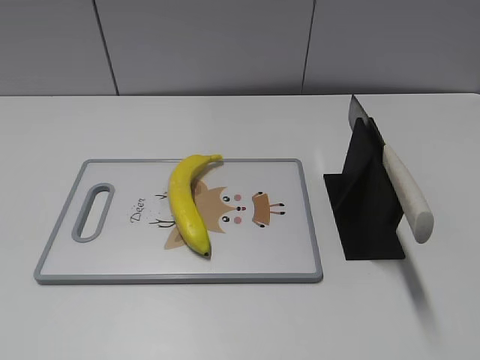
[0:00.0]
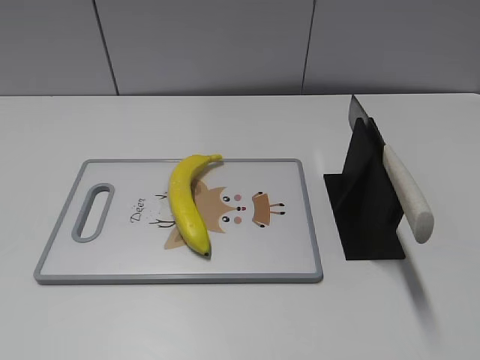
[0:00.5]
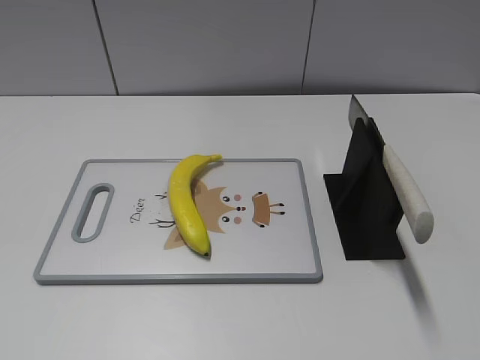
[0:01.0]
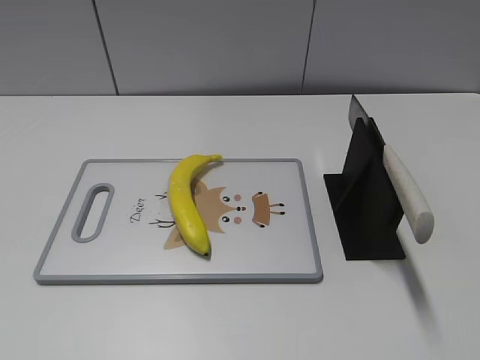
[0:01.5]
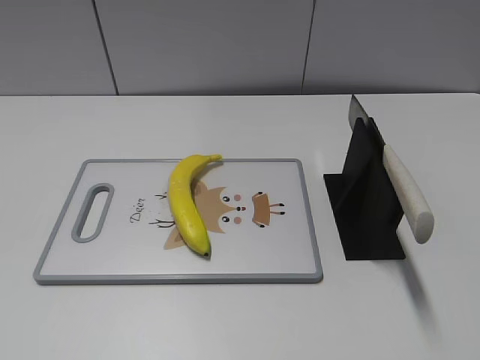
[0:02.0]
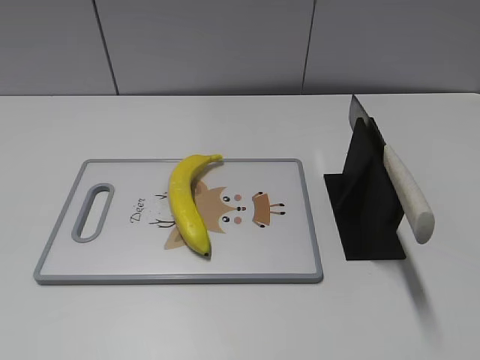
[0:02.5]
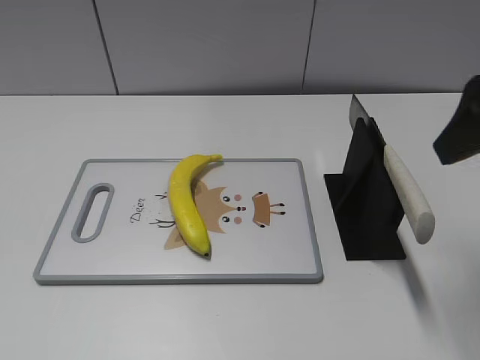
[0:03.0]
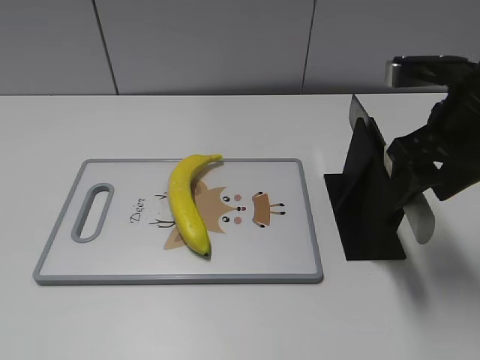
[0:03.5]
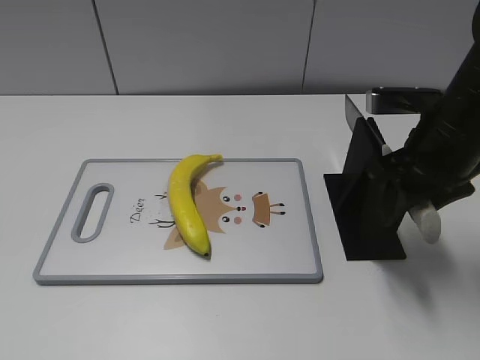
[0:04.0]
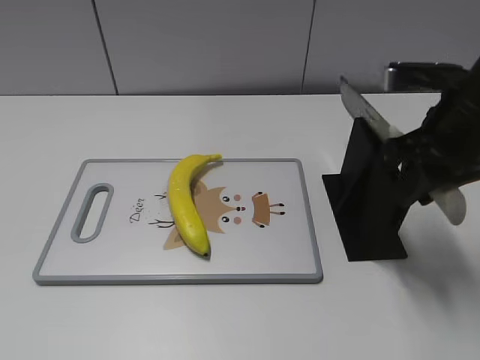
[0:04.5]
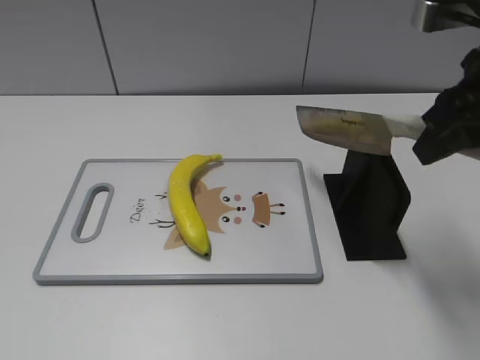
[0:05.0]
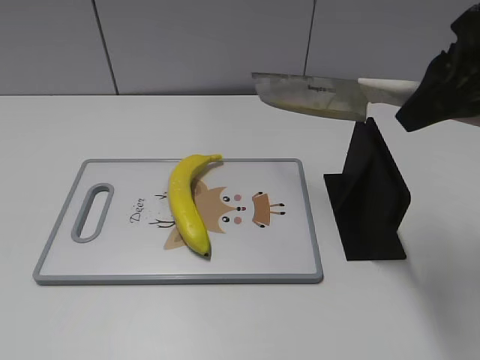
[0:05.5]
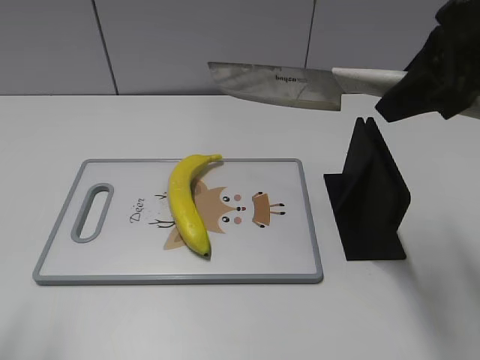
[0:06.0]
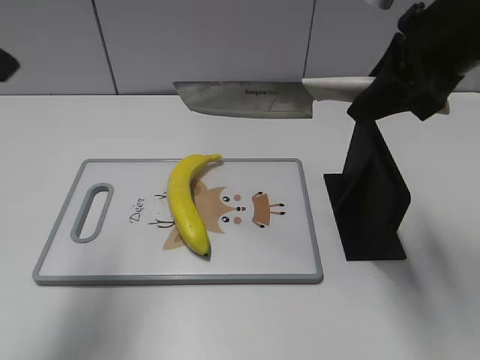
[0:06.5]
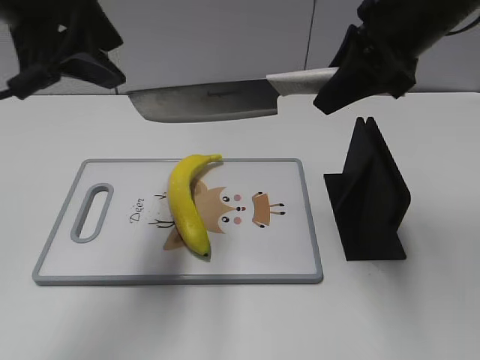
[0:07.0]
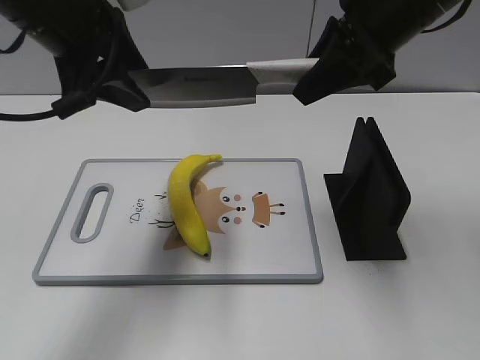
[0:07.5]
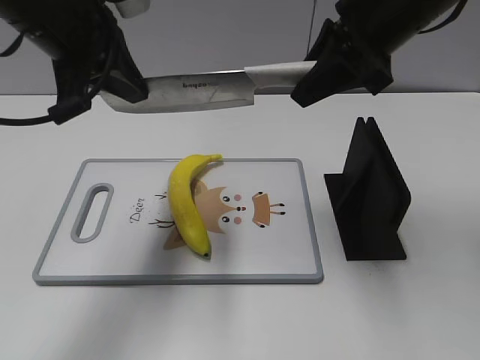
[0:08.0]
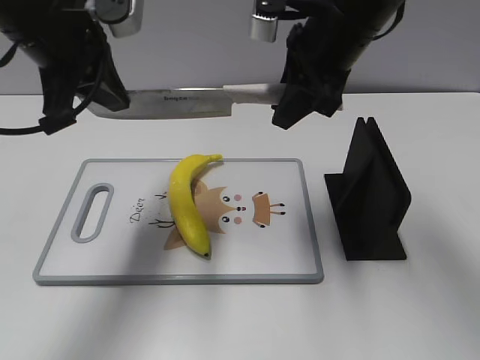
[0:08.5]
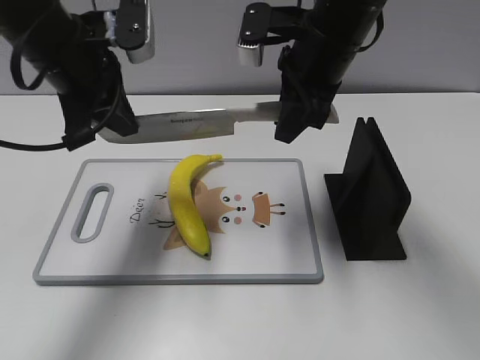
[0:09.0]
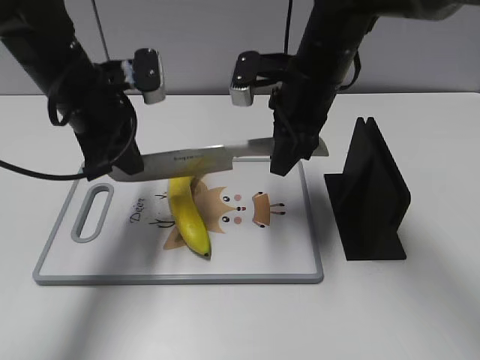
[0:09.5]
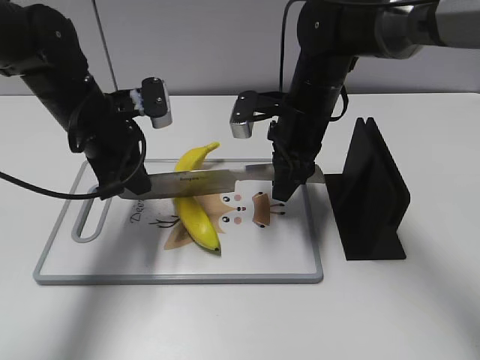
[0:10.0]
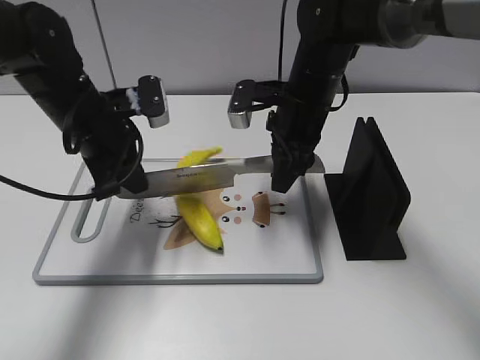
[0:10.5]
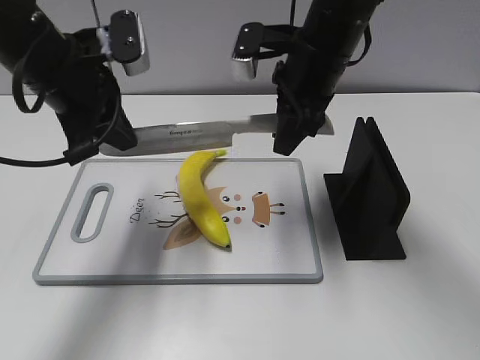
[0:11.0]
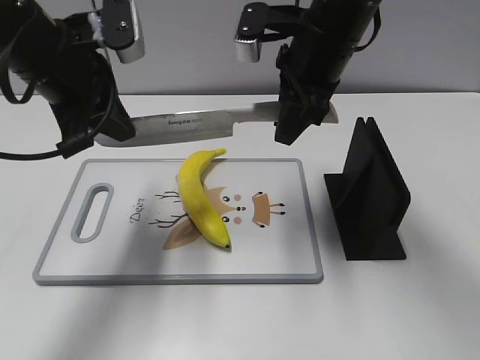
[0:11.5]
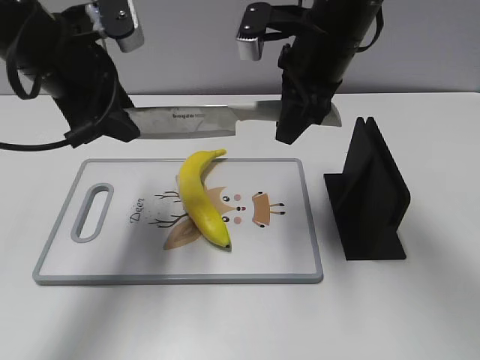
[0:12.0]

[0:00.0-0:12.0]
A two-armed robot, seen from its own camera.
Task of the whole recording: cut plastic banana.
Step, 0:00.0 to 0:05.0: Grab the knife handle with your right hand.
Step, 0:05.5 to 0:09.5: Lift the knife with your right hand.
0:02.0 to 0:04.0: The right gripper goes about 25 cm forward, and closes up.
0:04.0 to 0:06.0: The left gripper is displaced forward and upward by approximately 10 cm. The right gripper is displaced upward by roughly 10 cm, and closes.
0:06.0 to 0:08.0: The left gripper goes approximately 25 cm forward and to the right, and closes its fingers. Meanwhile the right gripper goes some 10 cm forward.
0:08.0 to 0:10.0: The left gripper heads downward, covering approximately 15 cm; the right gripper travels downward and to the left by some 15 cm.
0:10.0 to 0:12.0: The grippers both shift upward by approximately 10 cm. The left gripper opens.

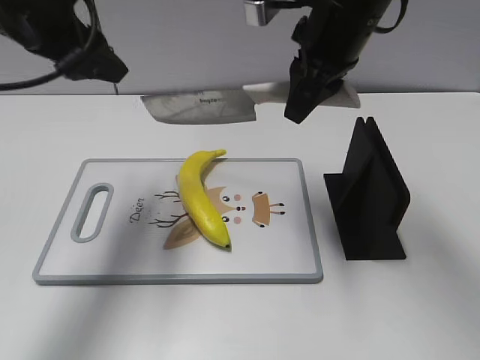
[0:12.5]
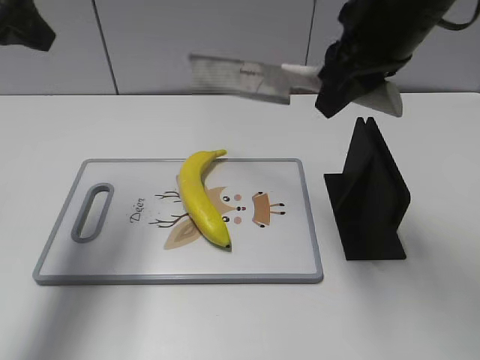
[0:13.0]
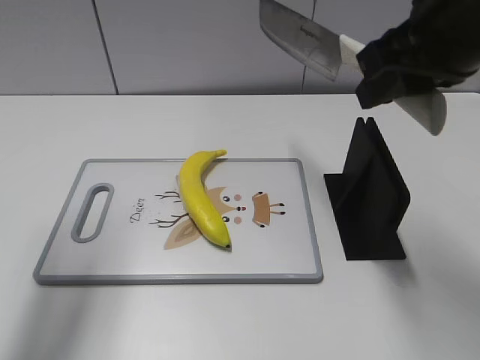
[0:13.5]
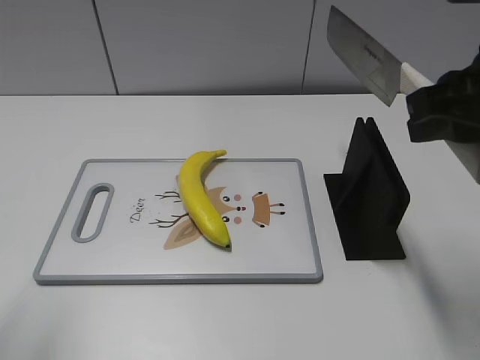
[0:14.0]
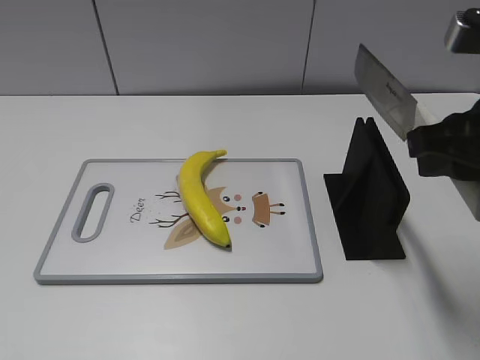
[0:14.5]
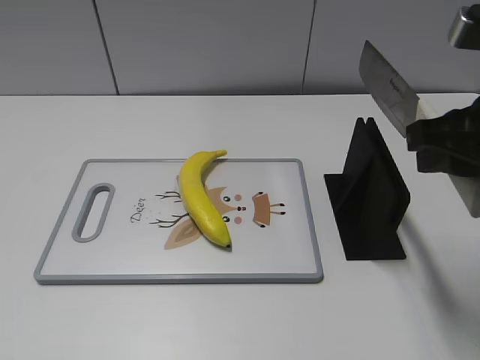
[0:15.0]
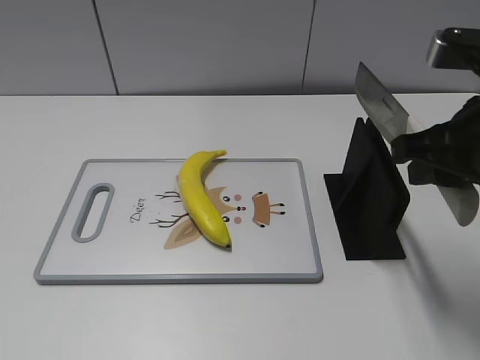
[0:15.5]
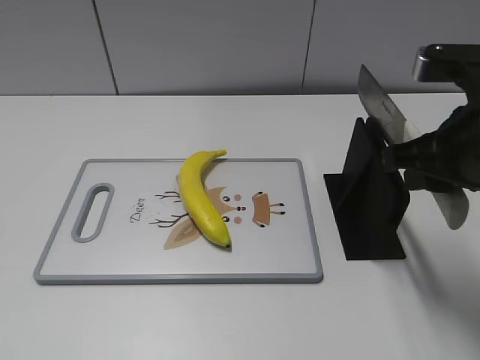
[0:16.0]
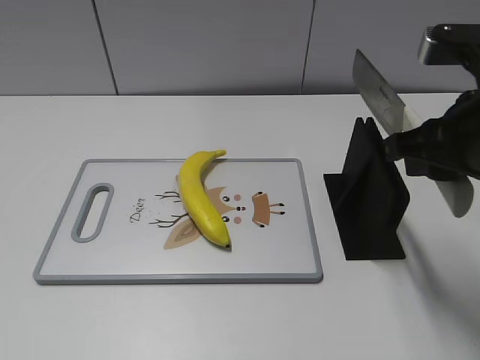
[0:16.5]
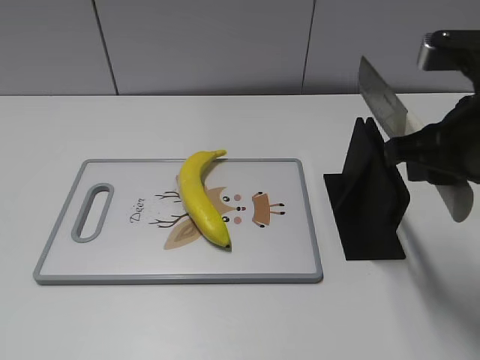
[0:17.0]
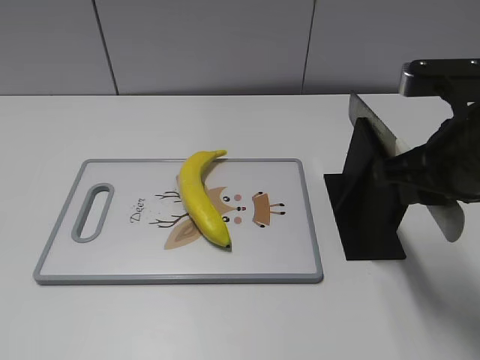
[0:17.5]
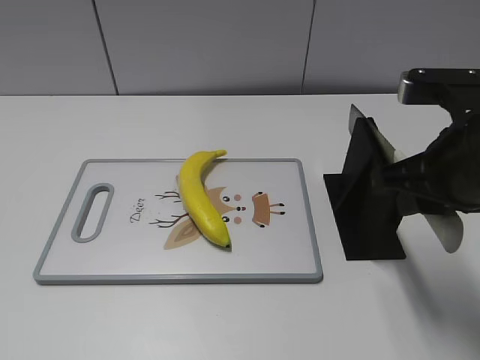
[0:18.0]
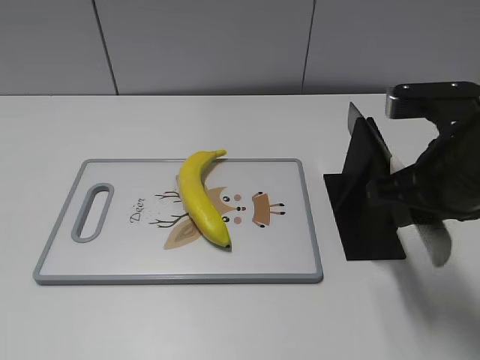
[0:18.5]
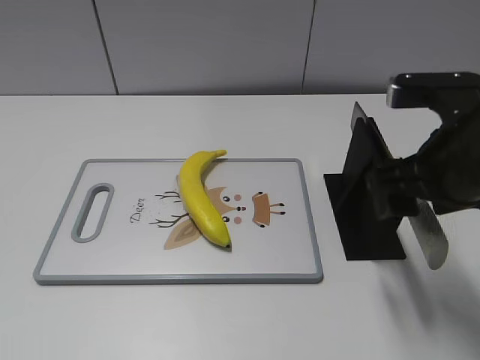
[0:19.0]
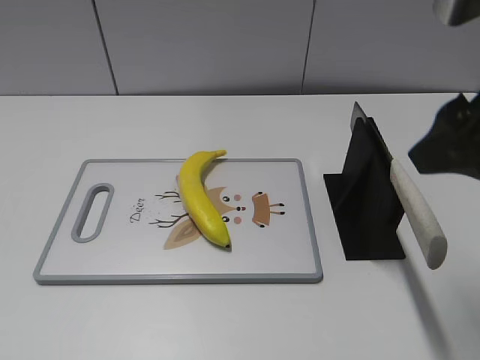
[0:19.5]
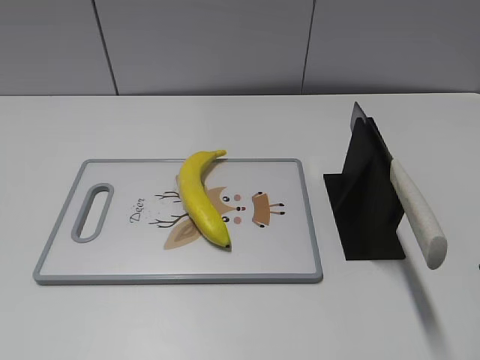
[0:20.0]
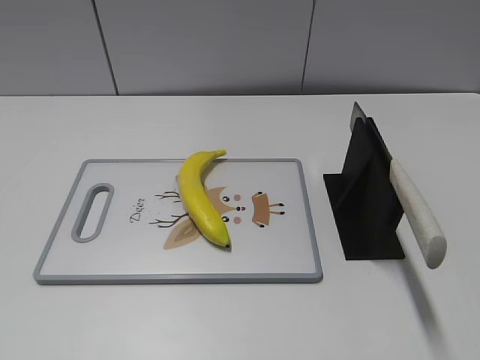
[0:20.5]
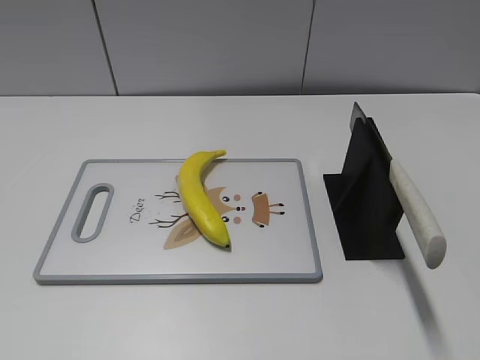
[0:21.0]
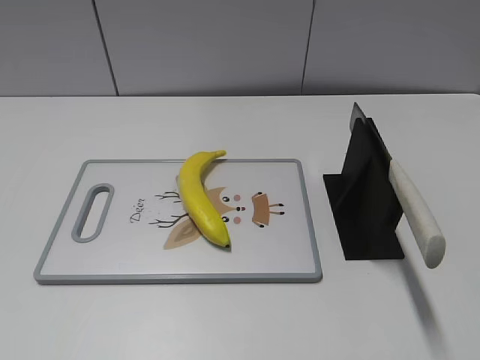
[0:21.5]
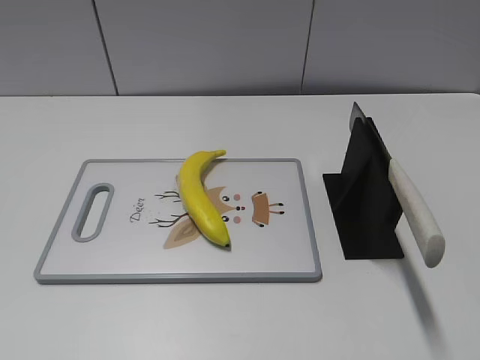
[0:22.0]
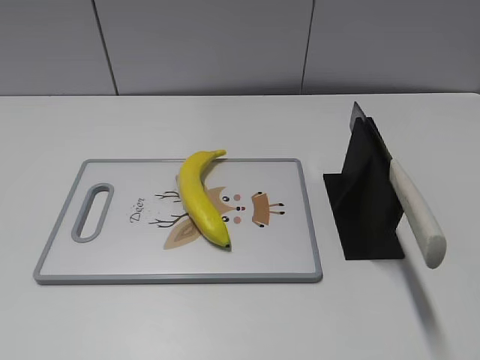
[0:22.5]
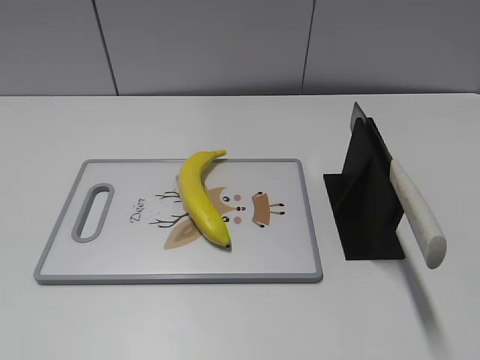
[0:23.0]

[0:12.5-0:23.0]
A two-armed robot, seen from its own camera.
Task of the whole recording: cut plastic banana.
Step, 0:13.0 to 0:14.5: Lift the knife with your right hand.
Step, 0:15.0 to 0:23.0: Place the knife on the storage rack with your right hand.
0:12.5 to 0:14.5: The right gripper goes some 20 cm backward and to the right. Meanwhile the left gripper shifts some 30 cm backward.
0:16.5 to 0:19.0: The right gripper opens up.
0:19.0 to 0:21.0: The right gripper is displaced backward and to the right by roughly 25 cm.

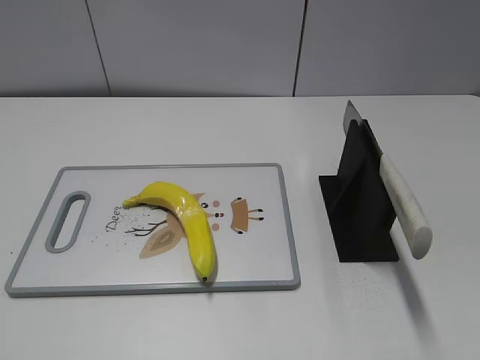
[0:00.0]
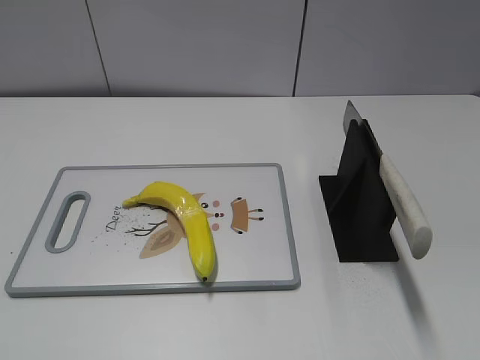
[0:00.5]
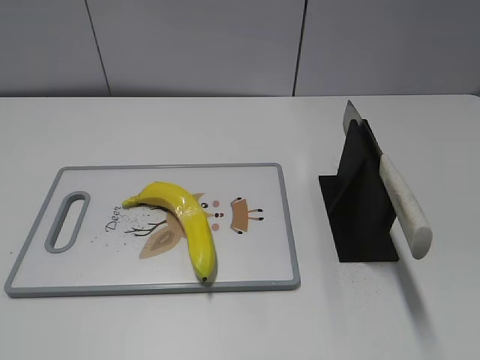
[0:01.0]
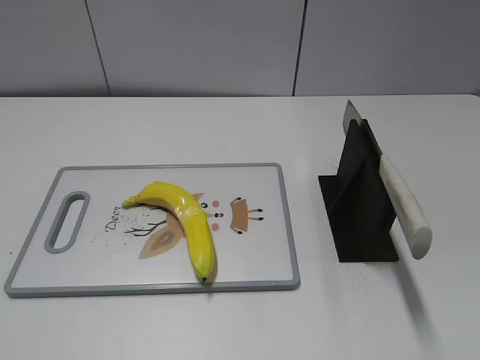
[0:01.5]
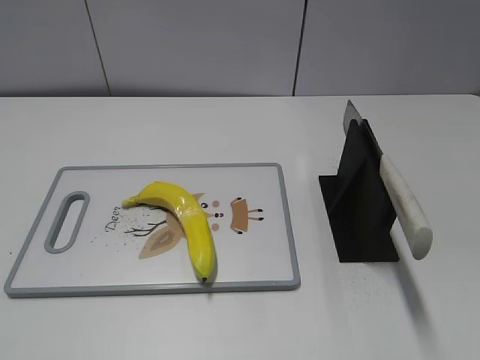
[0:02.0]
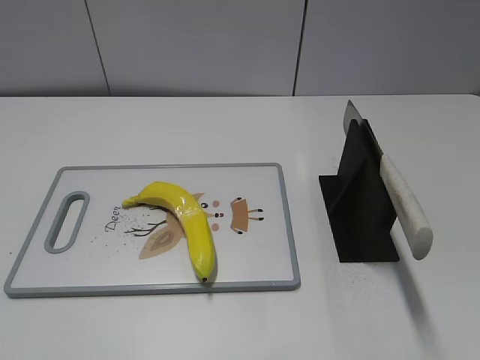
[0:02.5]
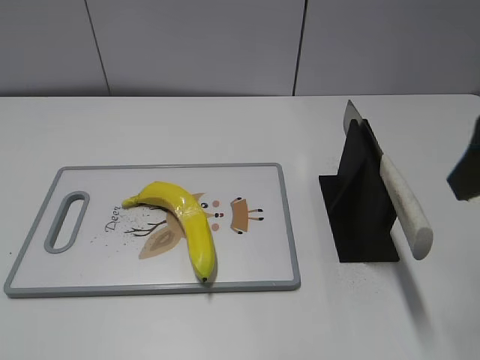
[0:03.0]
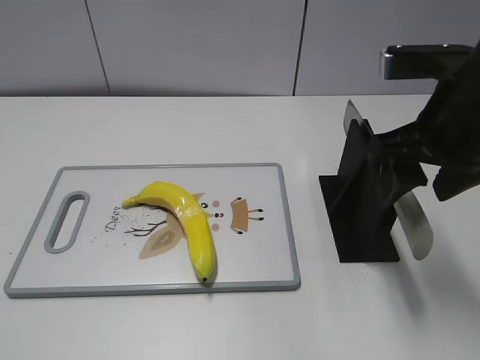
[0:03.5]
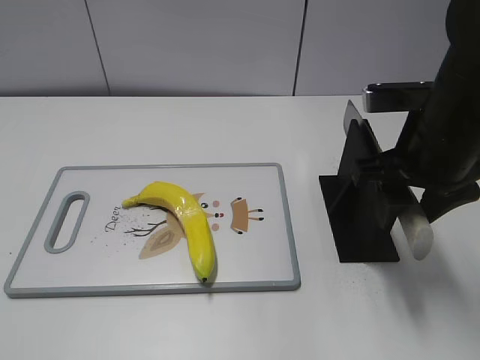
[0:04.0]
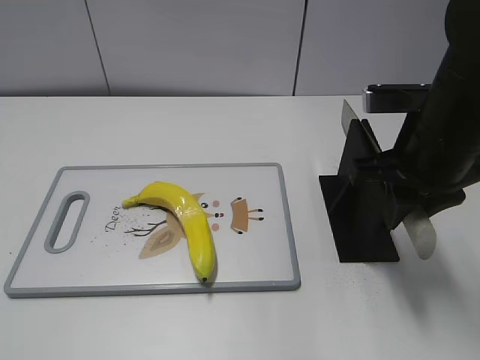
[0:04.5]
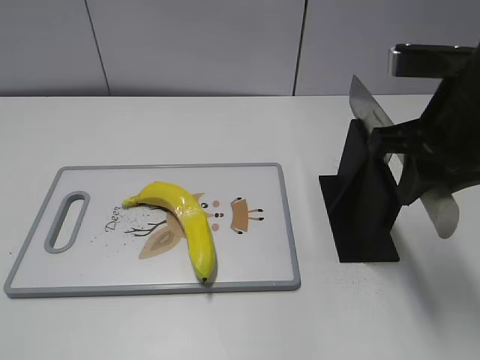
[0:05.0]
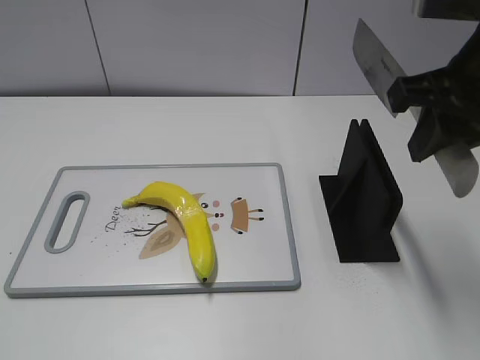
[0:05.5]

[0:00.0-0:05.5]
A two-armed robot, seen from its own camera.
Task of the whole recording: cut plastic banana.
Step, 0:00.0 to 0:05.0: Grab the knife handle with your right hand.
0:02.0 to 0:03.5: The right gripper travels forward and to the left by about 25 cm.
0:03.5 to 0:05.5: The right gripper shifts about 5 cm upward, and closes its fingers.
